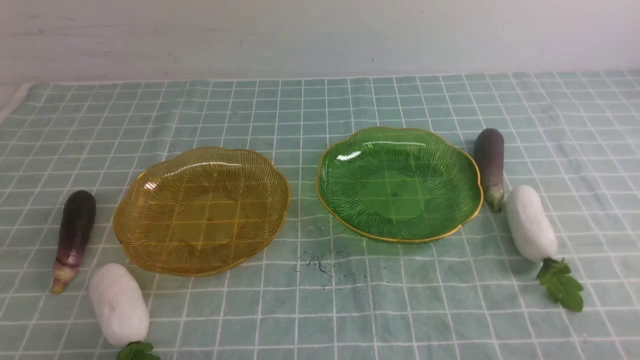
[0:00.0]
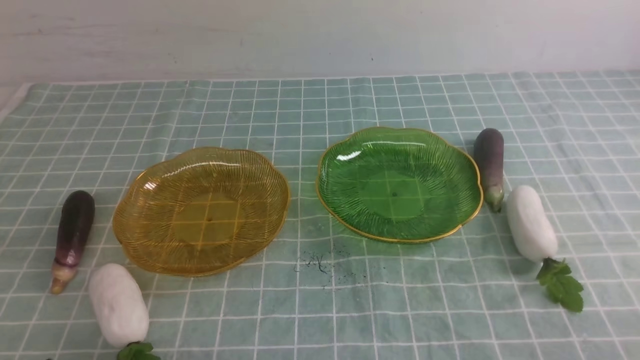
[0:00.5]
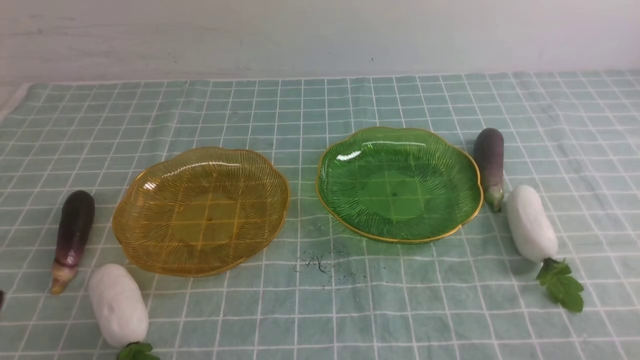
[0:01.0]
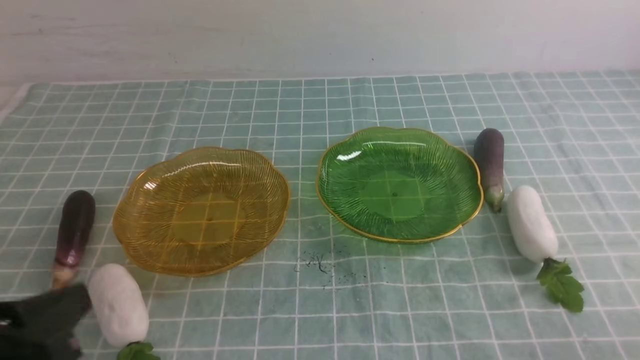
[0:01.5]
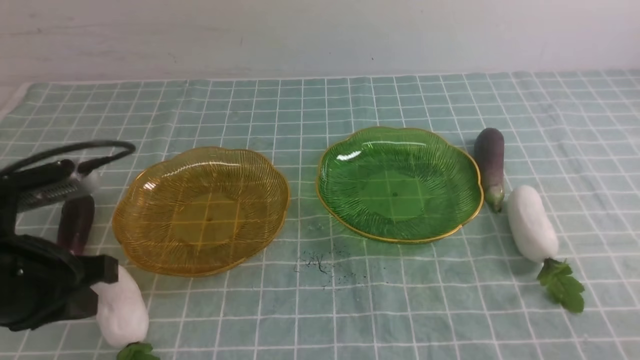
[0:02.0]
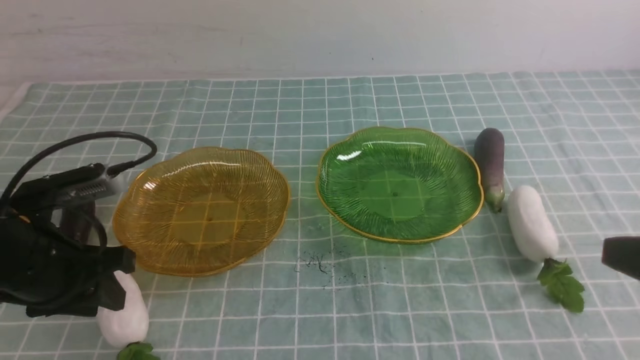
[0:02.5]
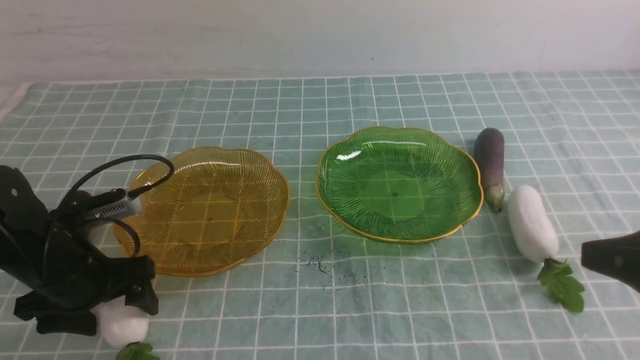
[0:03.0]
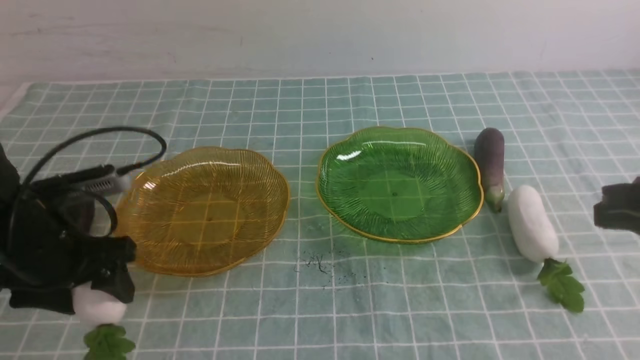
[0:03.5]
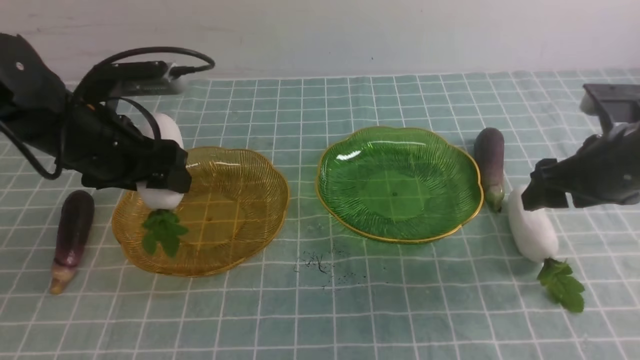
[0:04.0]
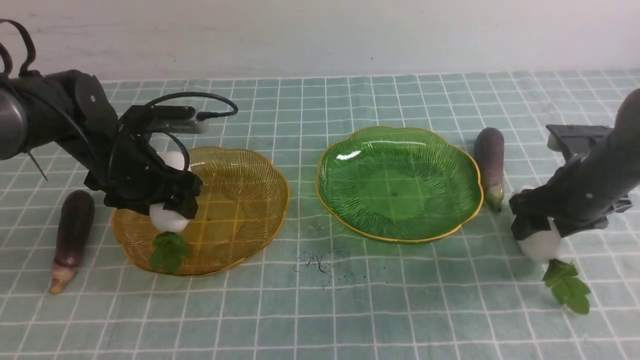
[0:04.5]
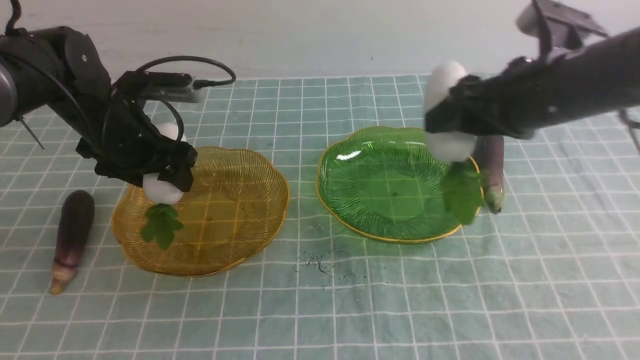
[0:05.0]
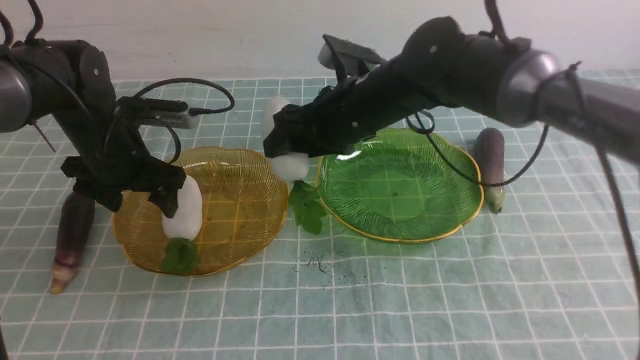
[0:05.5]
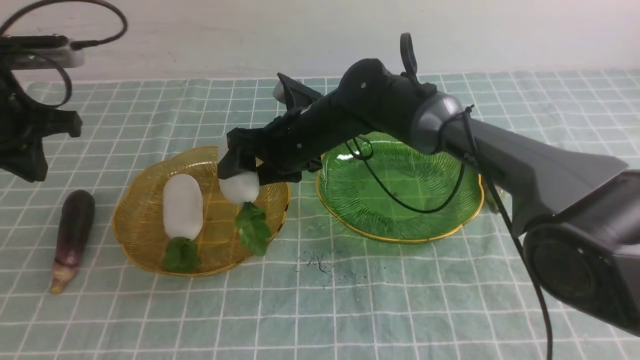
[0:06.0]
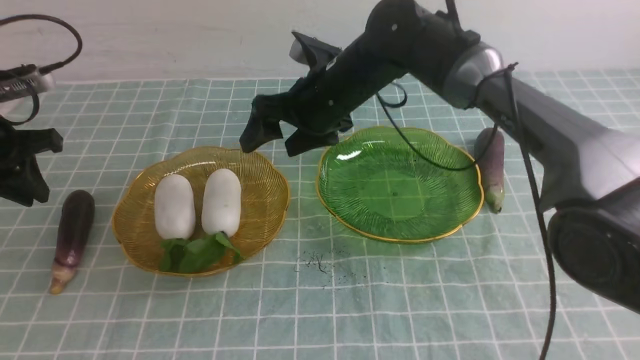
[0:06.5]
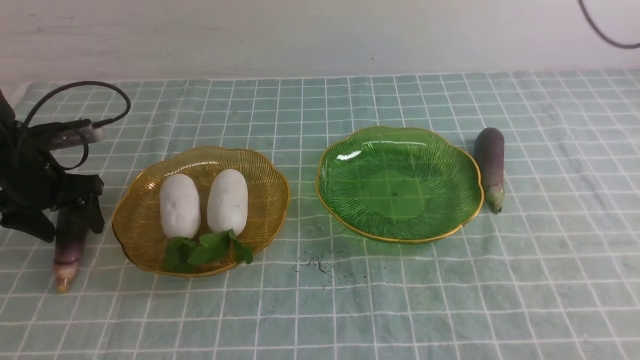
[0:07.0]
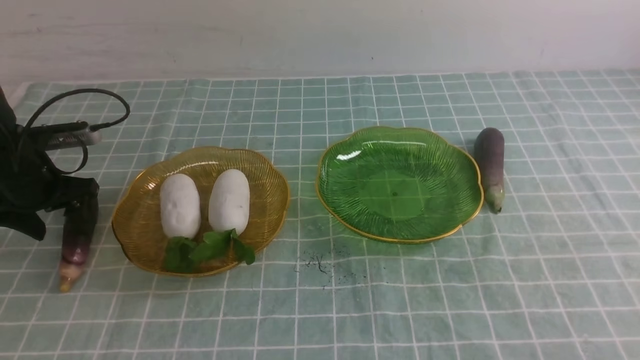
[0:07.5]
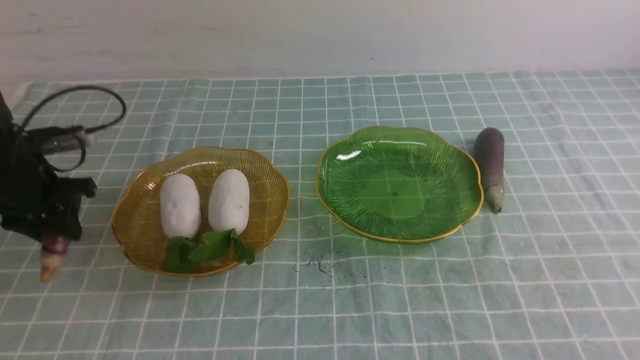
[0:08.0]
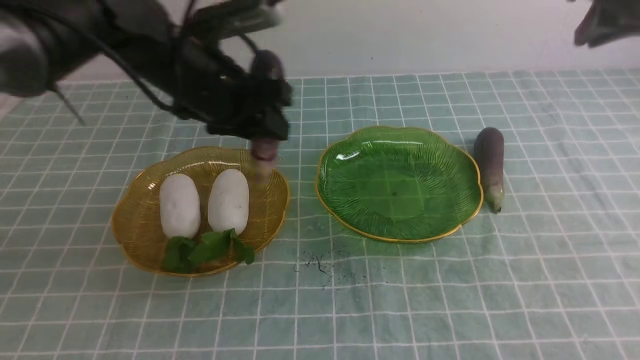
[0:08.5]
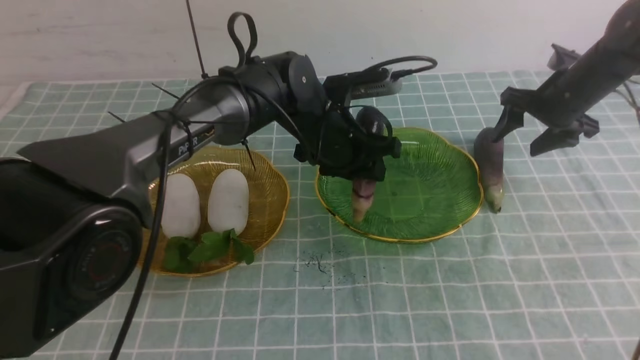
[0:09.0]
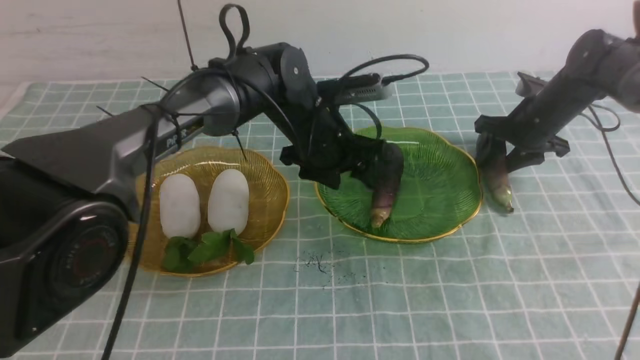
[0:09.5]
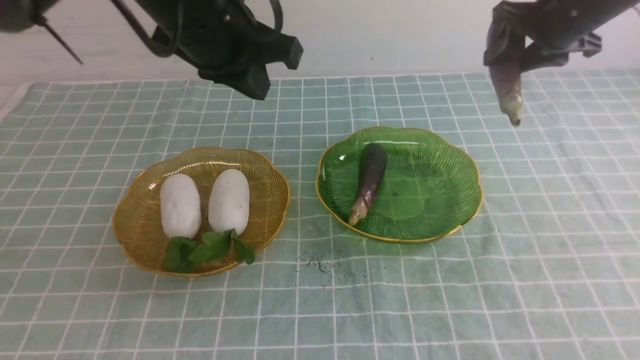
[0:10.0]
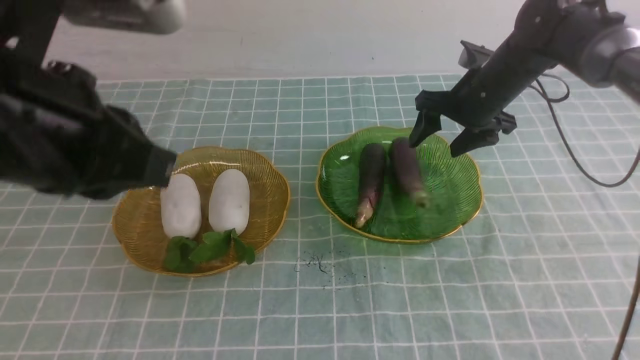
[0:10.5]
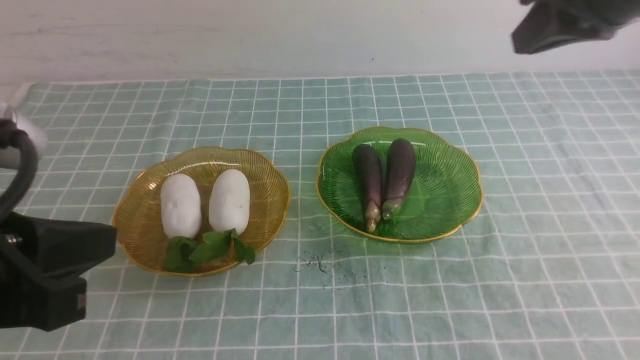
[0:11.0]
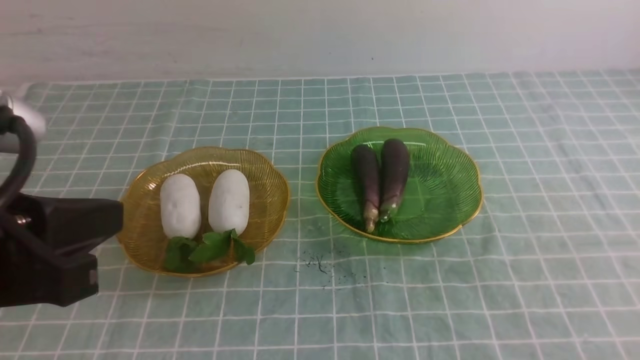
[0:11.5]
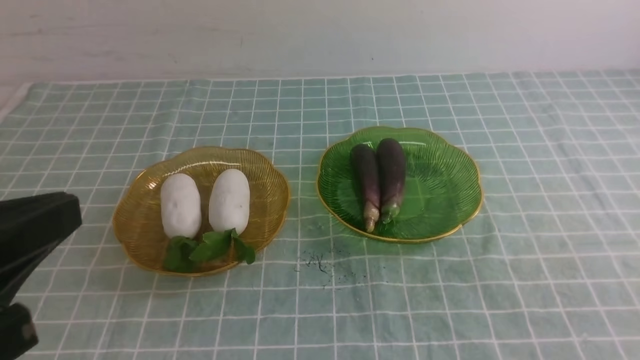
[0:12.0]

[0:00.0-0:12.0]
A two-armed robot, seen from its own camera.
Step, 0:00.0 to 0:04.0: use the left arm to grab a radish and put it into the left plate.
Step, 0:04.5 to 0:06.0: use the right arm to grab a radish and put it into the left plate.
Step, 0:06.5 to 0:09.0: use the left arm to grab an eggplant and put it into the right plate.
Step, 0:09.5 to 0:10.5: use the right arm to grab an eggplant and put it into the right plate.
0:00.0 to 0:02.0: The left gripper heads forward and upward, covering roughly 15 cm.
0:02.0 to 0:04.0: The left gripper moves forward, some 15 cm, and opens up. The right gripper goes some 25 cm forward, and opens up.
0:04.0 to 0:06.0: The left gripper goes about 10 cm to the left, and closes; the right gripper goes about 30 cm to the left.
0:06.0 to 0:08.0: The right gripper goes some 40 cm to the right and upward, and closes up. The left gripper travels downward and back again, about 15 cm each way, and opens up.
0:08.0 to 0:10.0: The left gripper is displaced to the right and upward by approximately 25 cm, and closes. Meanwhile the right gripper goes about 20 cm downward and forward, and opens.
0:10.0 to 0:12.0: The left gripper heads backward and to the left, covering roughly 25 cm. The right gripper moves backward, about 50 cm, and closes its fingers.

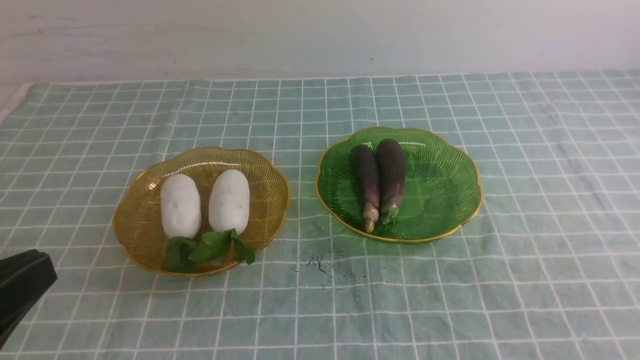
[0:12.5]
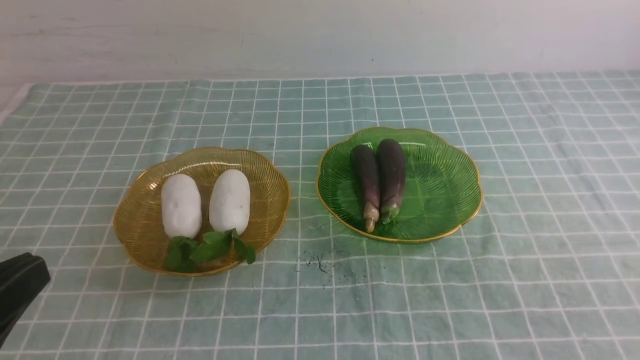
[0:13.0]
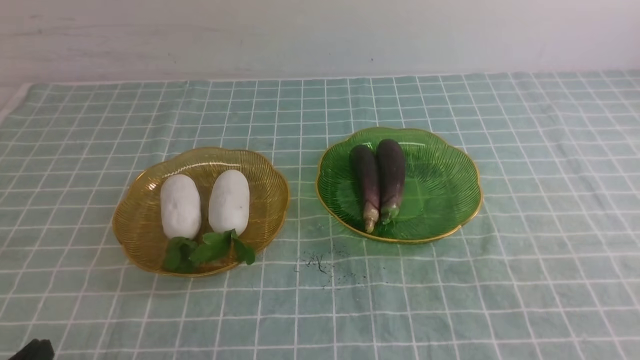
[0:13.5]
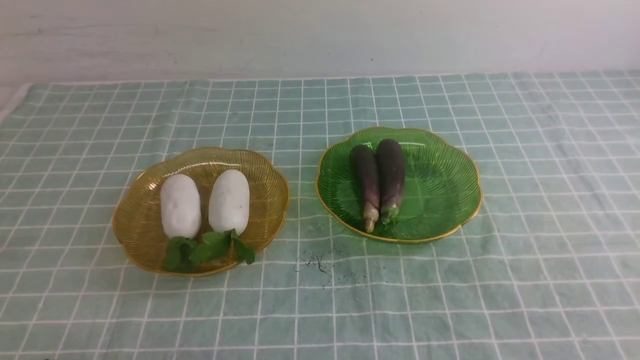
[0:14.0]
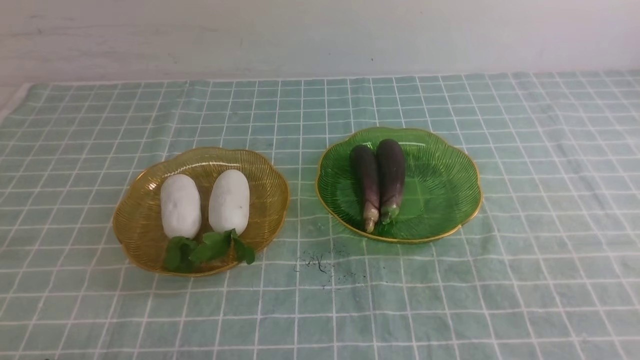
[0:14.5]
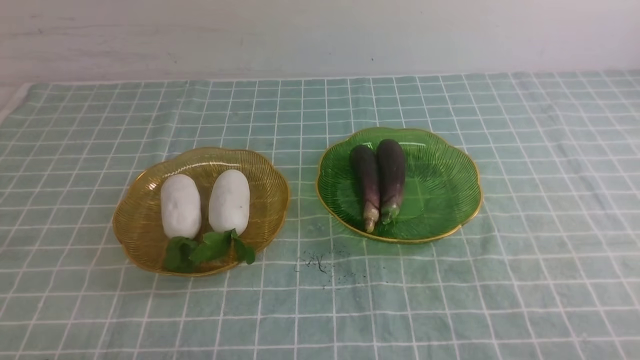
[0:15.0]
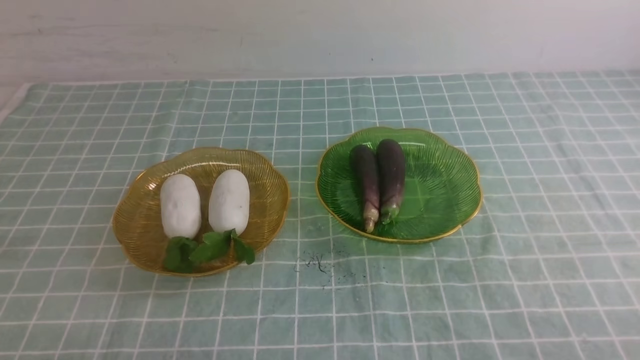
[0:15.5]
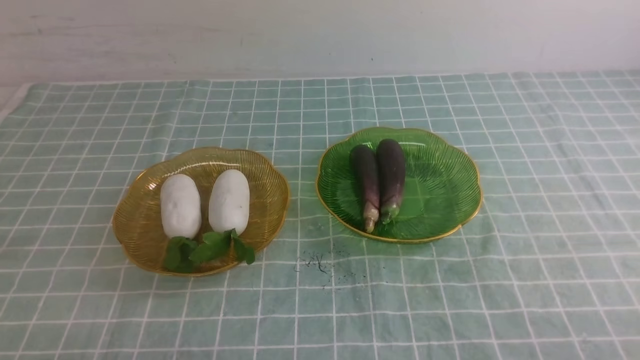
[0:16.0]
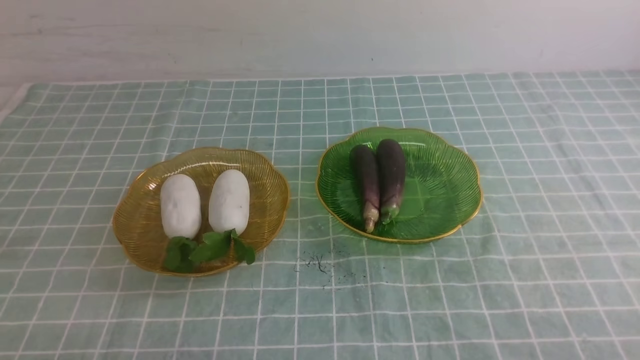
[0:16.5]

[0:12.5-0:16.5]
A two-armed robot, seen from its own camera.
0:12.5 to 0:14.5: The left gripper is displaced downward by about 15 cm.

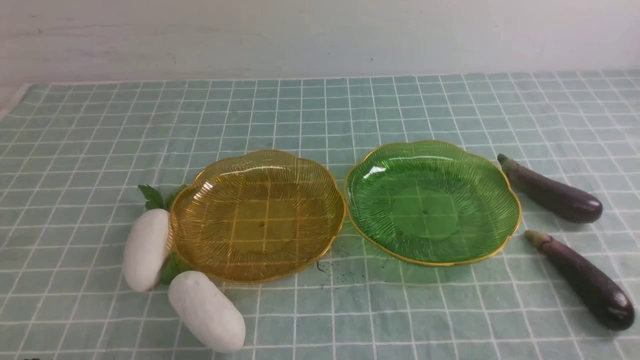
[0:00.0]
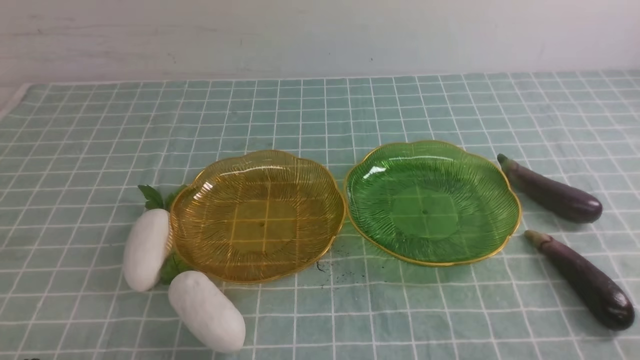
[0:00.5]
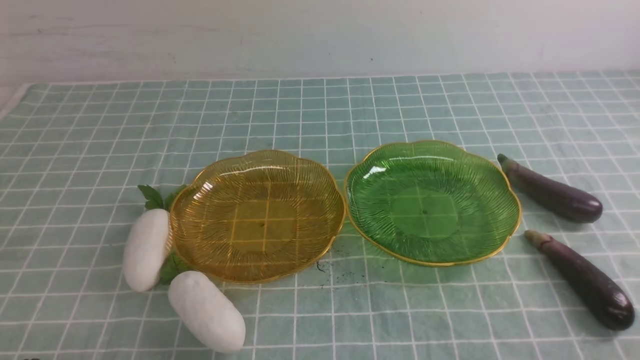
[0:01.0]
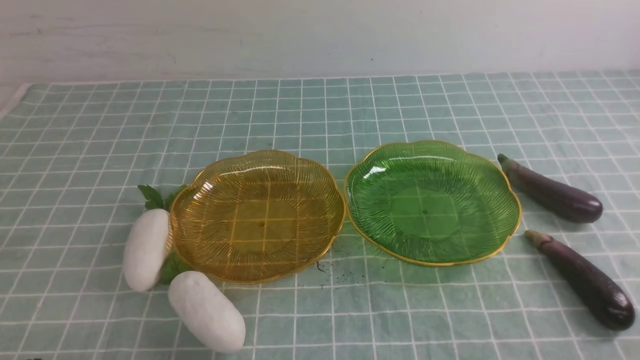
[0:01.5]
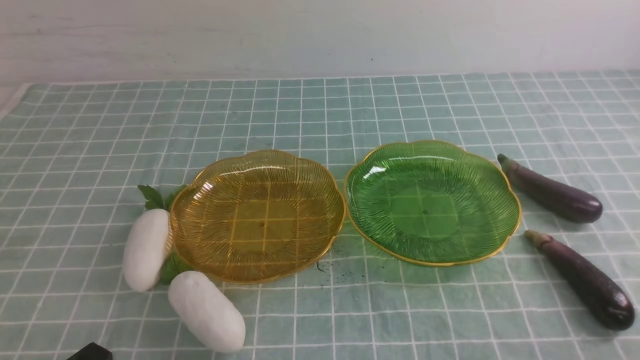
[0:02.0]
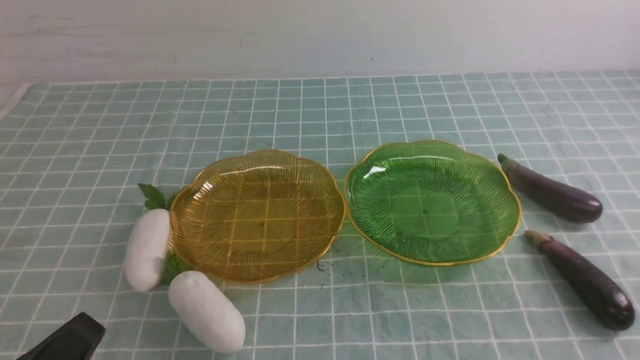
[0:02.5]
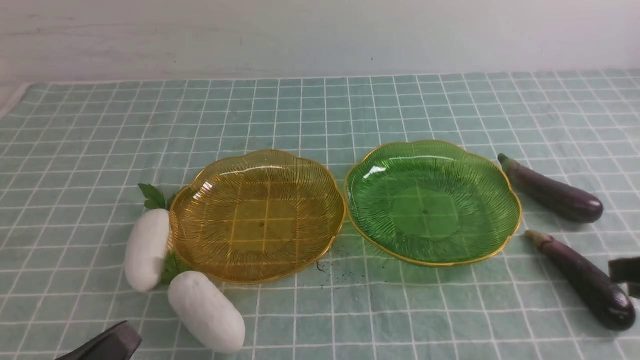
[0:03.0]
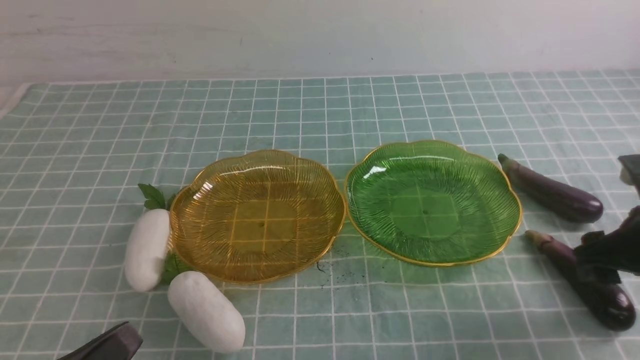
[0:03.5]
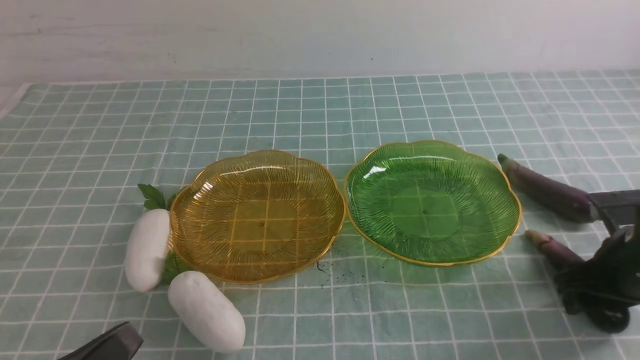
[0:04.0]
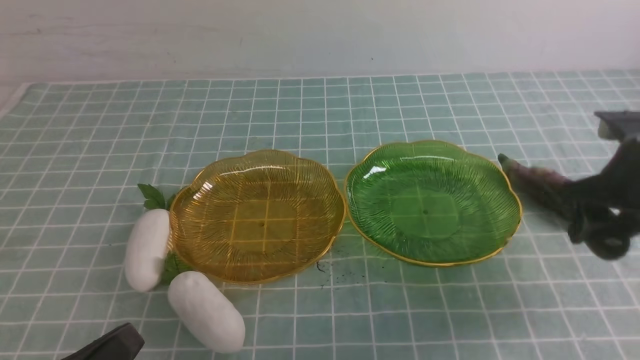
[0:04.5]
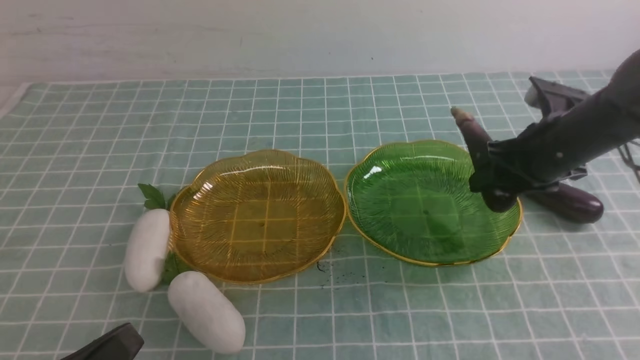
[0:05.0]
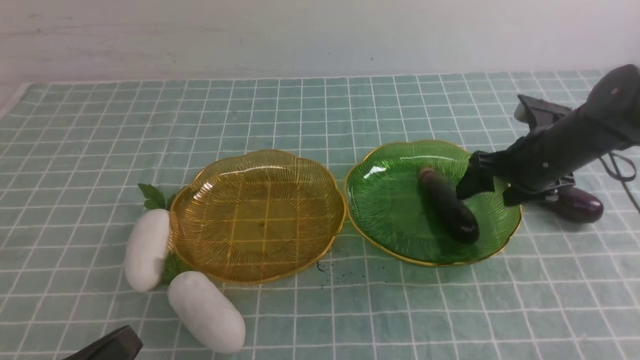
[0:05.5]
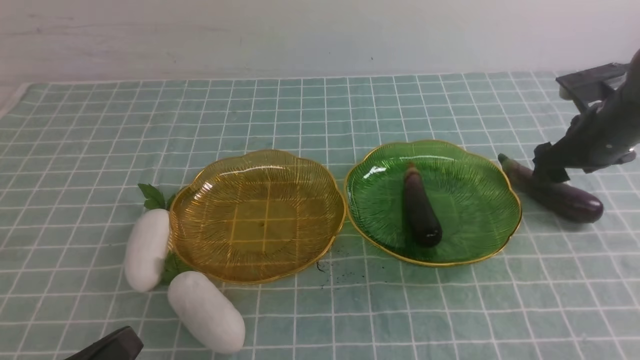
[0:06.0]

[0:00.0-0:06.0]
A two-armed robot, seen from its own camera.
Step, 0:00.0 to 0:05.0: use the right arm to grab an eggplant and put it into the right plate.
0:02.0 to 0:04.0: The right gripper moves forward, some 25 cm, and opens.
0:04.0 to 0:06.0: The right gripper shifts approximately 15 cm forward.
